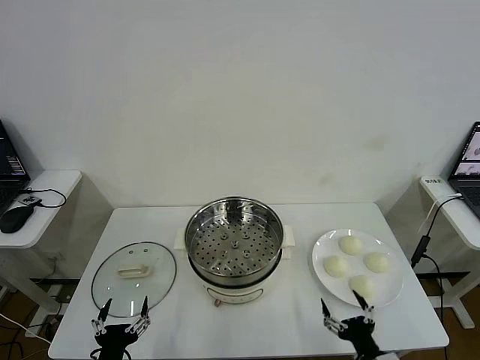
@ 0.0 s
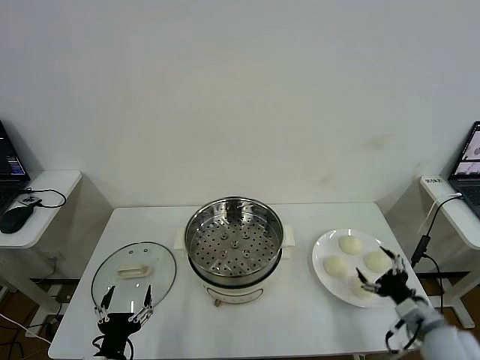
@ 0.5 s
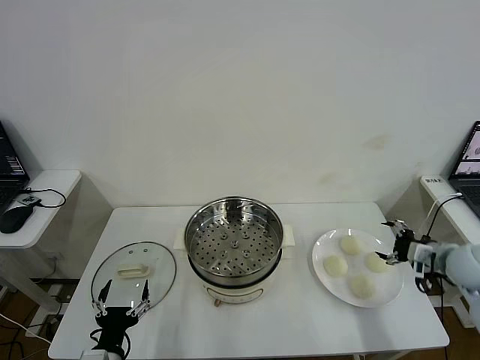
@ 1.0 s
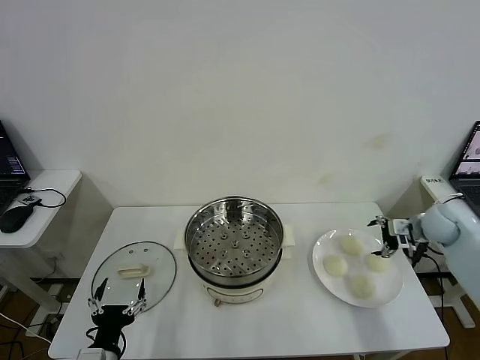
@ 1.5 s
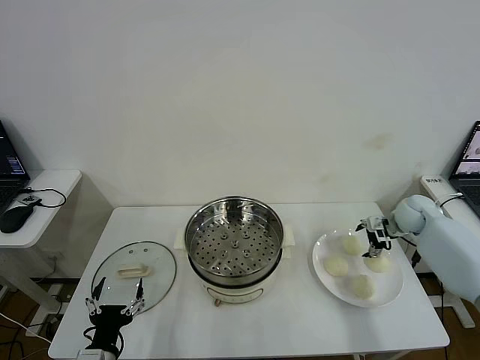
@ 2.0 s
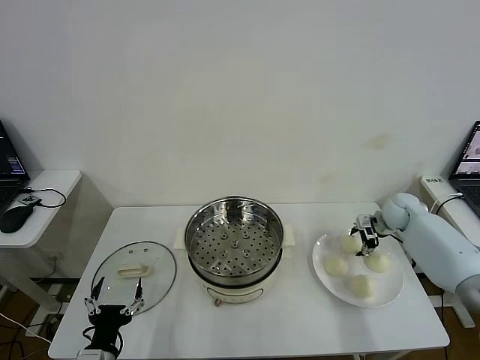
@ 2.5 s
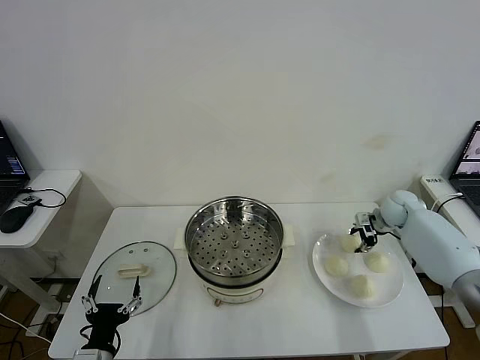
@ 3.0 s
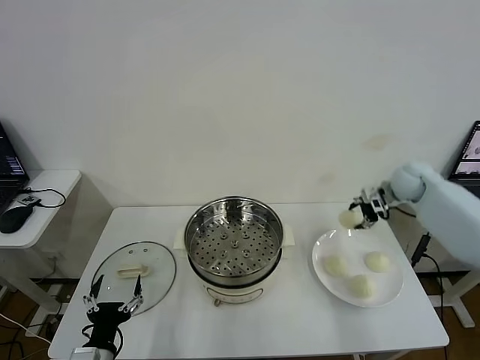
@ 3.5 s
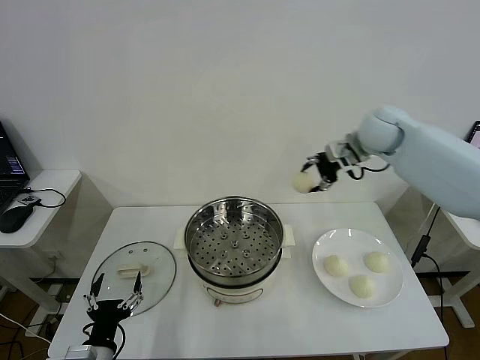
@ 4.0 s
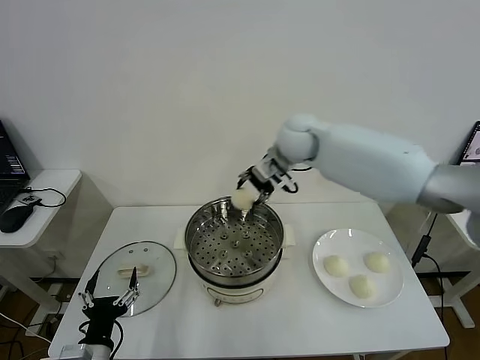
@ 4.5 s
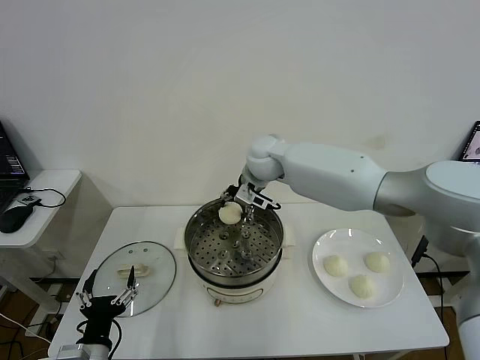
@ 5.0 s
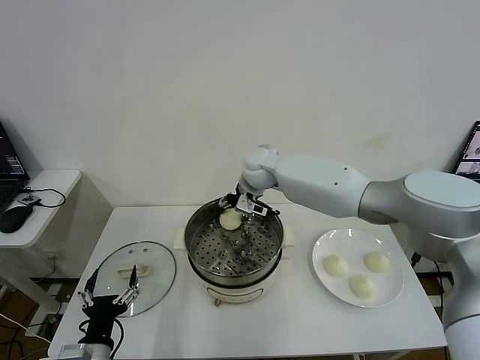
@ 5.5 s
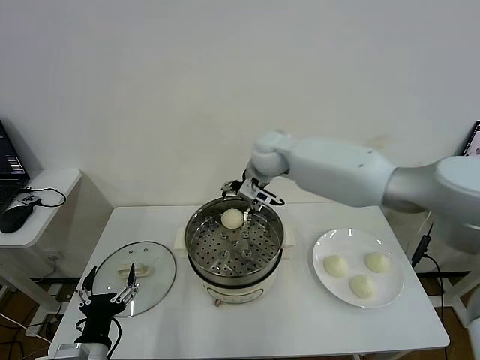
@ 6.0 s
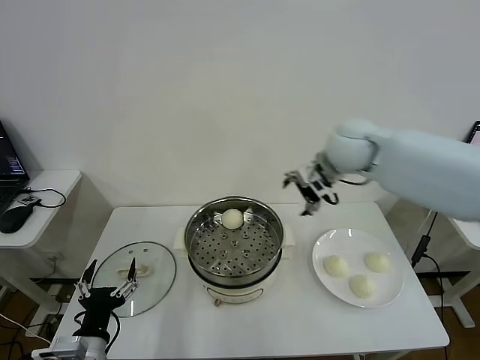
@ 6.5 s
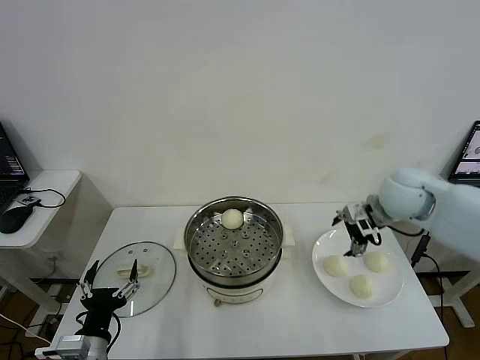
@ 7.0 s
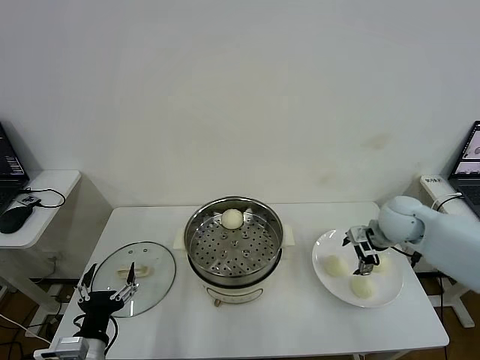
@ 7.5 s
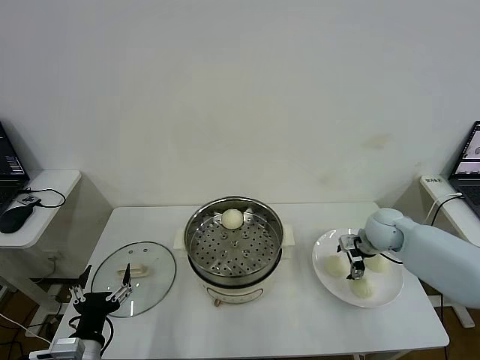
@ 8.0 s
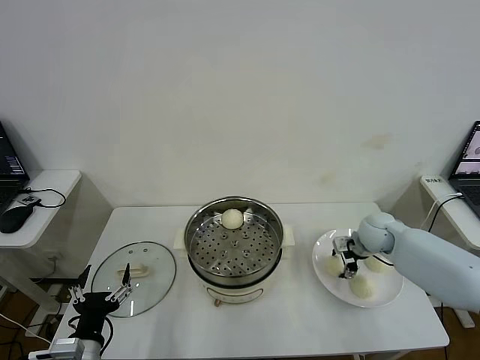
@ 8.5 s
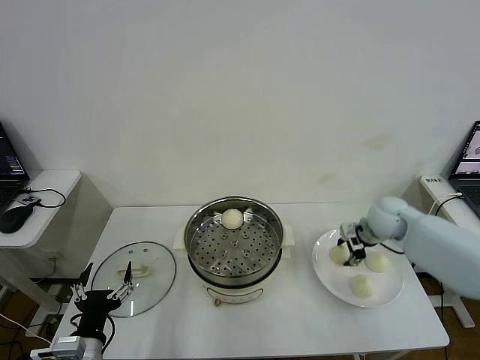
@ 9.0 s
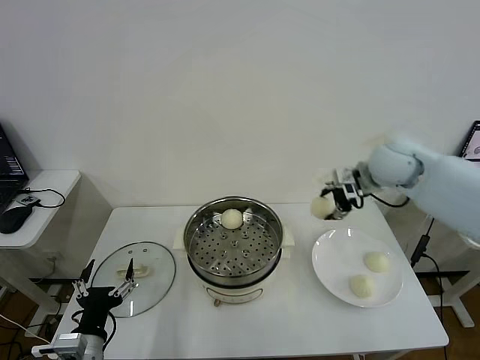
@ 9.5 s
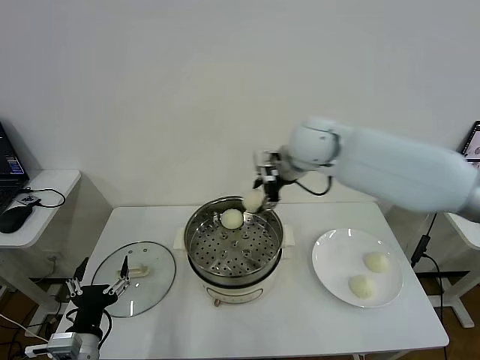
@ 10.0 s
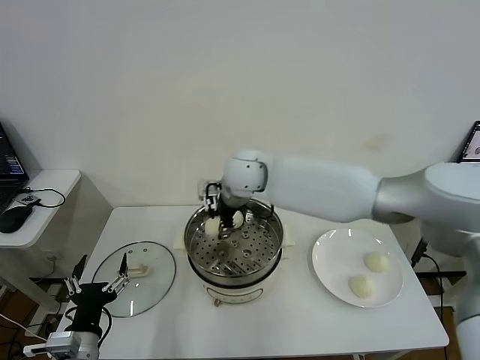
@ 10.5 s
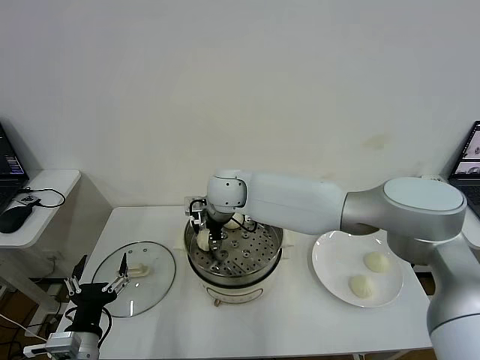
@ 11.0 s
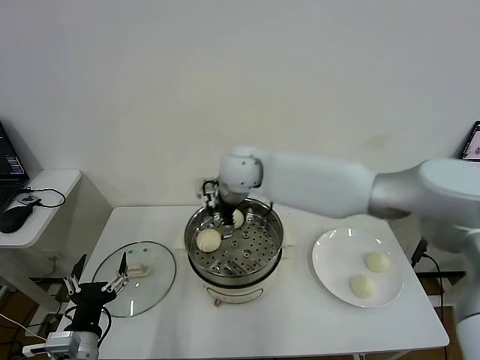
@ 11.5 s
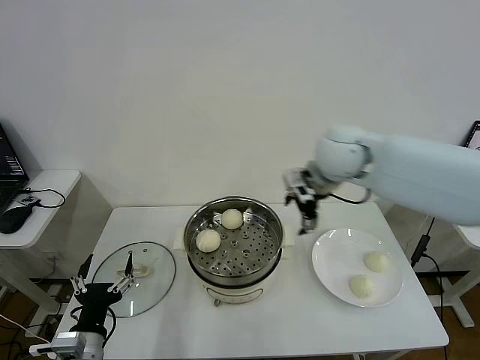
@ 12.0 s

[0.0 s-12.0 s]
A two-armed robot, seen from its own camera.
Step, 0.0 to 2.5 s: Grasp the baozi in the plate with right gripper.
Step, 3.0 to 5.5 s: Place the baozi on the steamer with right gripper.
Step, 6.0 to 8.5 s: Grasp the baozi in the plate with right gripper.
Step, 9.0 to 11.0 s: Place the baozi on the steamer with right gripper.
2.0 to 4.0 s: The right gripper travels upward and to the left by about 30 cm, and closes.
4.0 to 6.0 s: The right gripper moves to the left, some 15 cm, and opens up.
6.0 to 8.0 s: The right gripper is displaced to the right and downward by about 30 cm.
8.0 to 10.0 s: The right gripper is displaced to the left and upward by approximately 35 cm, and closes up.
10.0 to 12.0 s: The right gripper is displaced to the right by about 10 cm, and opens up.

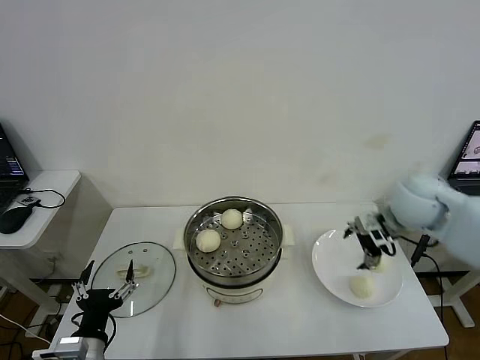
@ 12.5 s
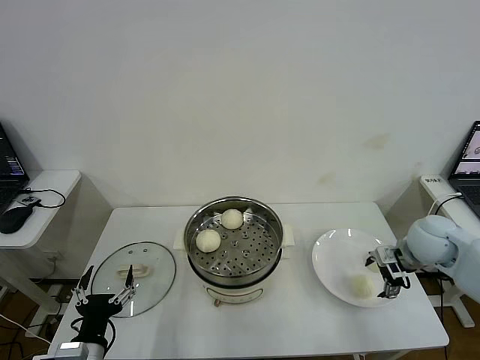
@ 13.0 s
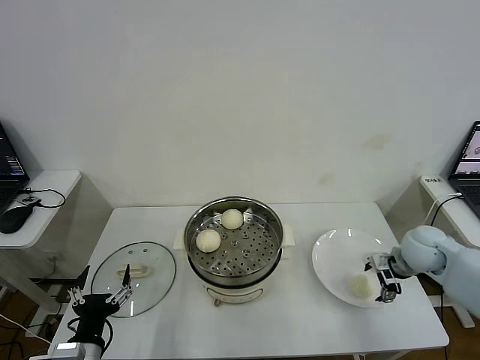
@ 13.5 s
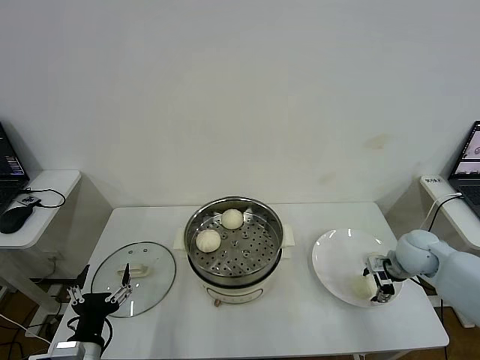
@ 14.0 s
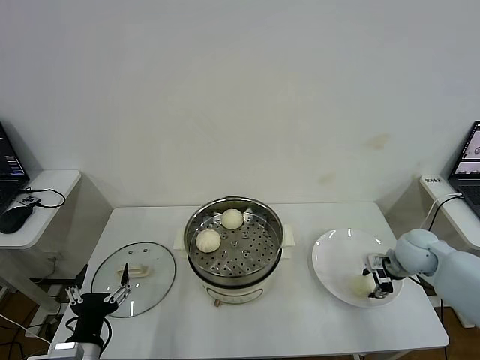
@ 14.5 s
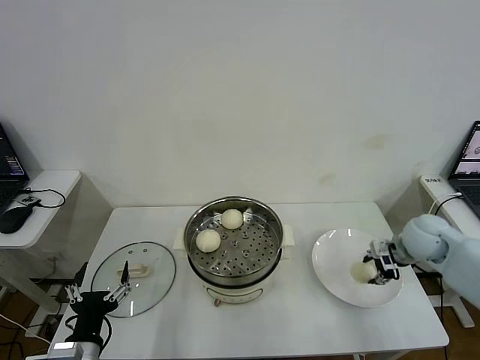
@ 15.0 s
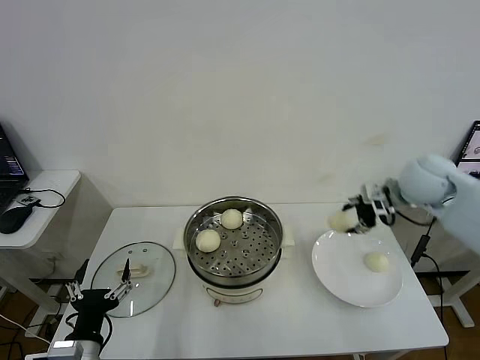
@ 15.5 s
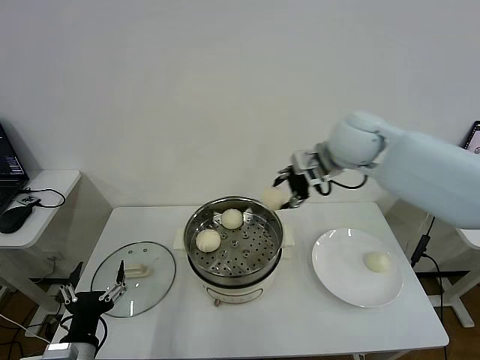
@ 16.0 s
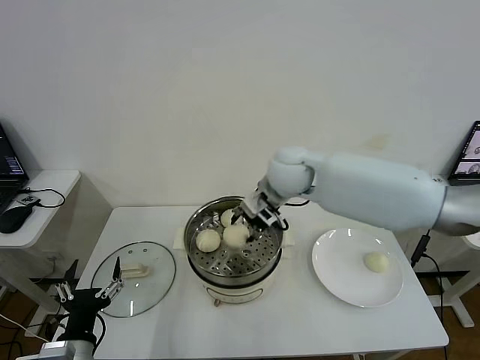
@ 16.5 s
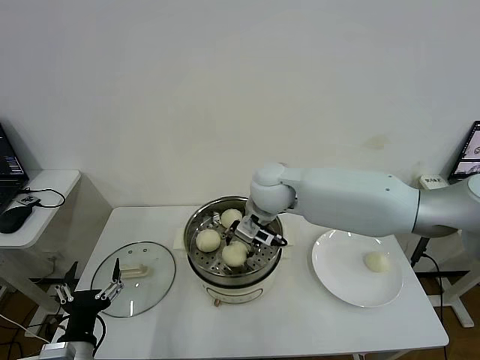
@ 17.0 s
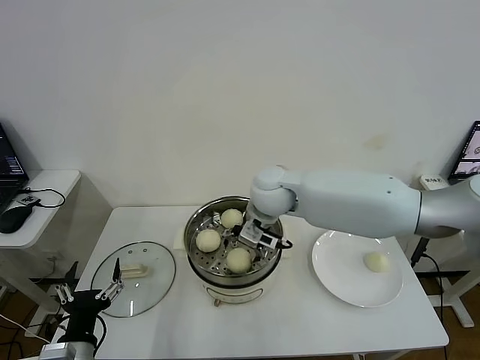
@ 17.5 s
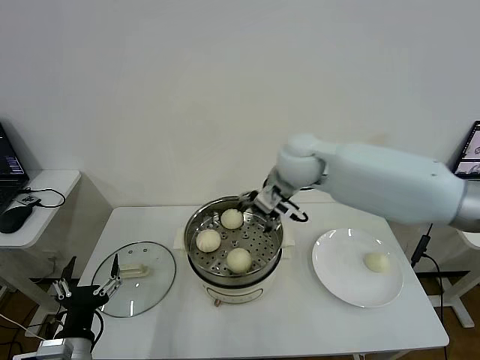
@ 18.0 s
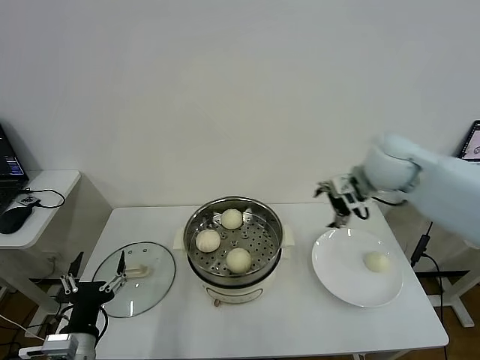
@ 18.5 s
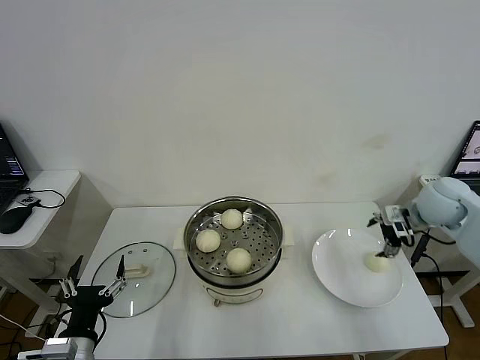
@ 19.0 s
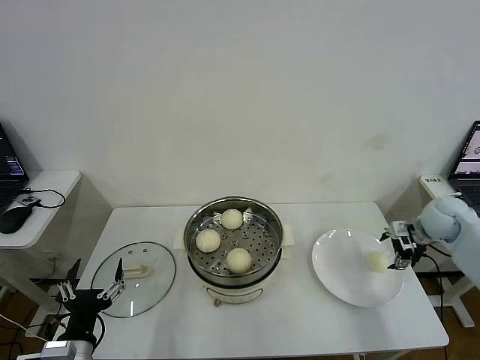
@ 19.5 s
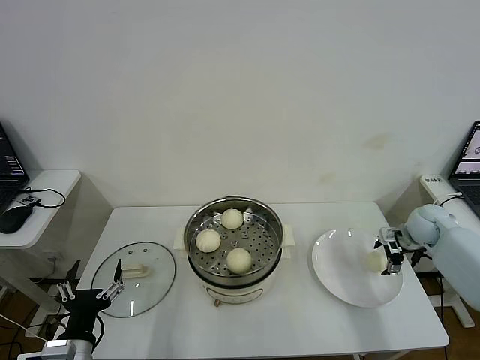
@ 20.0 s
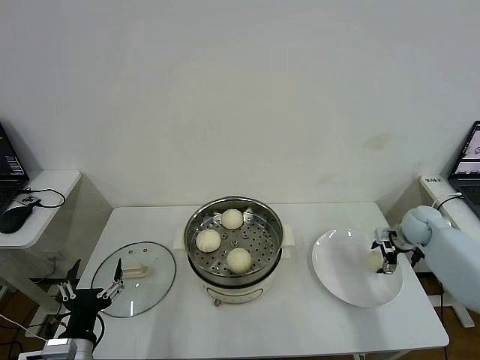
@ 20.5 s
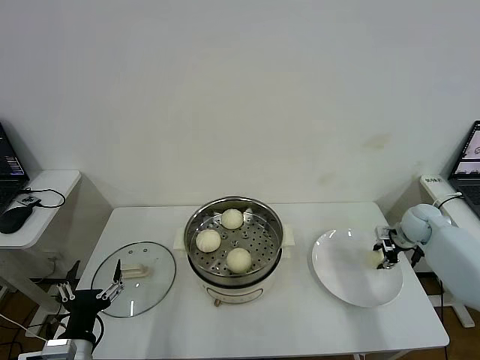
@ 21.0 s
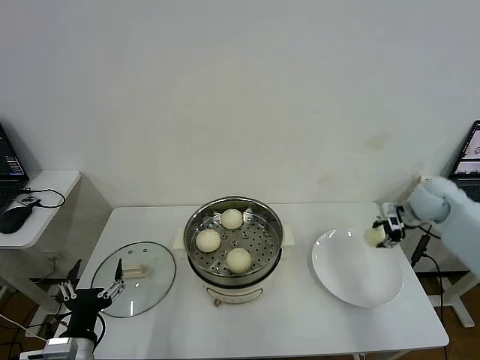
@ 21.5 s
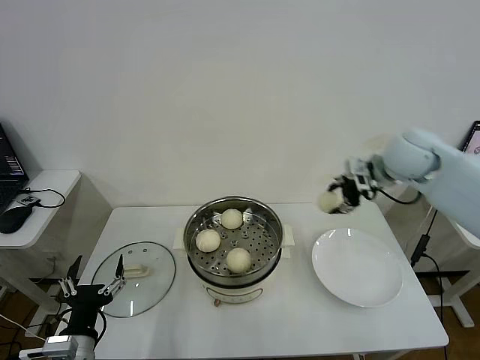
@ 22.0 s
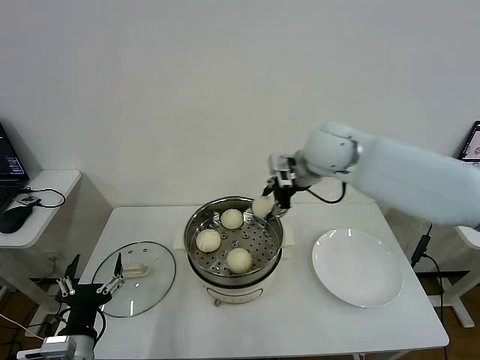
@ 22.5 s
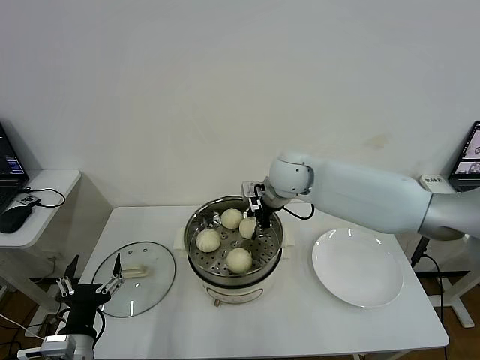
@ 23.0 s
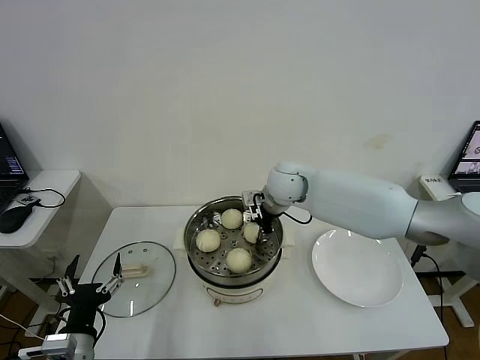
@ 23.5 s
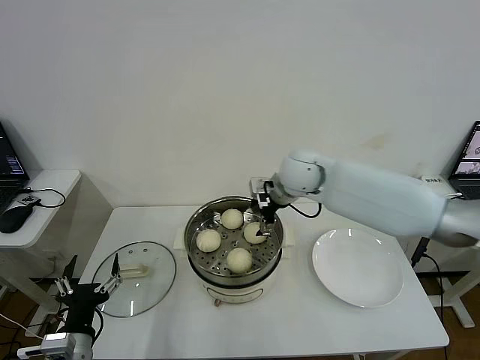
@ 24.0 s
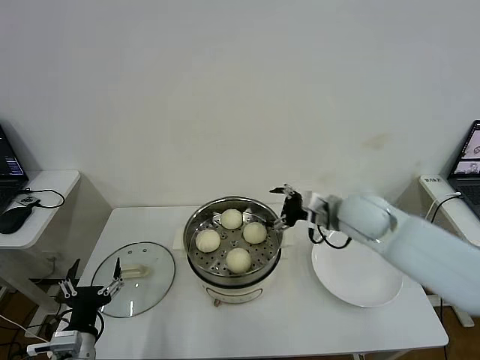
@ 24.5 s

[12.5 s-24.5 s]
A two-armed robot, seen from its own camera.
Step, 15.0 to 17.5 s: Place the baozi on the steamer with right gripper.
Step, 18.0 to 21.0 s: Grasp the baozi in the plate with right gripper.
Step, 21.5 to 23.5 s: Place the baozi on the steamer with right gripper.
12.5 to 14.5 s: The right gripper moves downward and to the right, roughly 15 cm, and closes its fingers.
14.5 to 16.5 s: The right gripper moves to the left and upward, approximately 35 cm.
16.5 to 18.5 s: The right gripper is displaced to the right by about 20 cm, and opens its fingers.
18.5 to 20.5 s: The right gripper is displaced downward and to the right by some 25 cm.
20.5 to 22.5 s: The right gripper shifts roughly 40 cm to the left and upward, and closes its fingers.
22.5 to 24.5 s: The right gripper shifts about 15 cm downward, to the right and backward, and opens up.

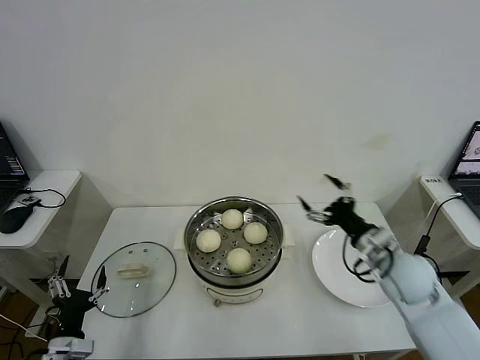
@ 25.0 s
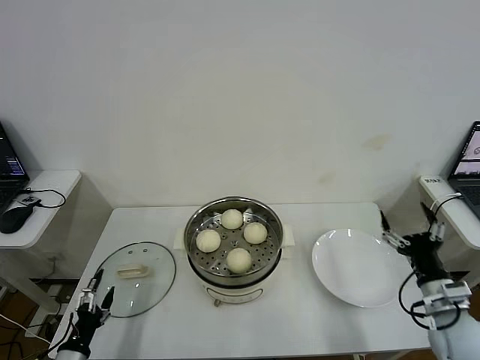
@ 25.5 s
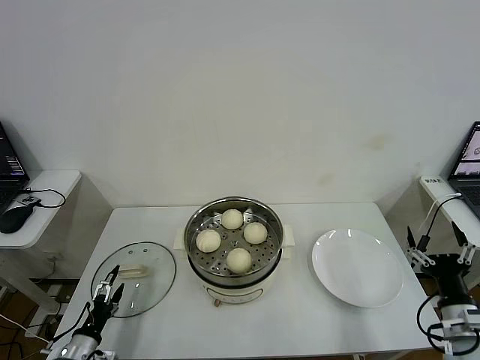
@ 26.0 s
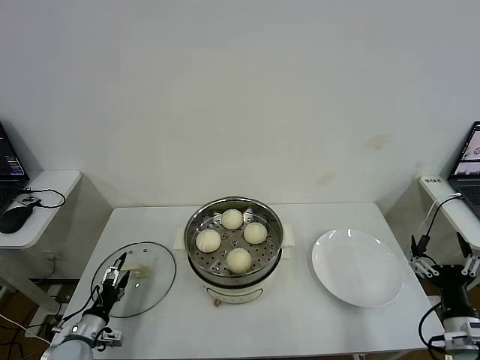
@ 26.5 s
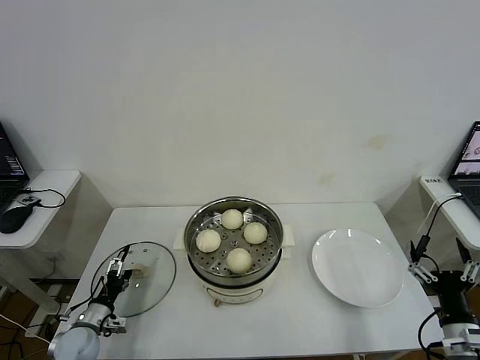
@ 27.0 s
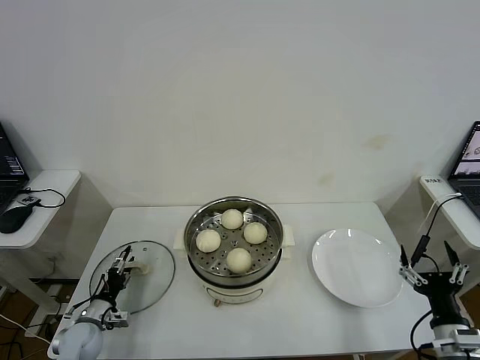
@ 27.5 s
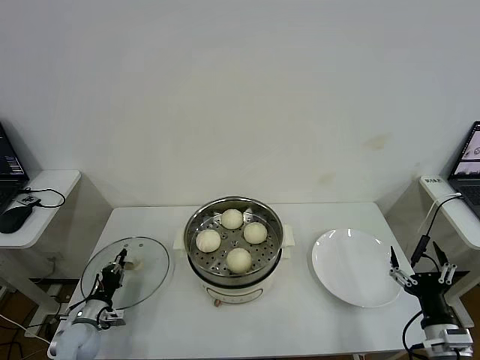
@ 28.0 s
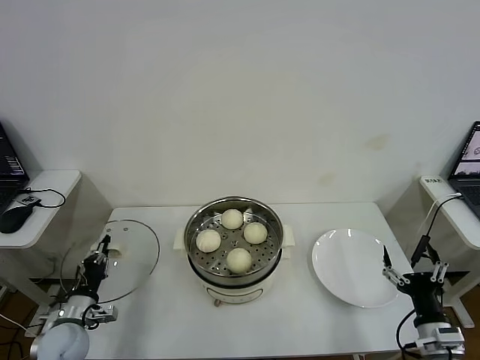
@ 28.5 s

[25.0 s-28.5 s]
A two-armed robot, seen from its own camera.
Step, 25.0 to 28.0 s: Grasp the pot lid with left gripper.
25.0 to 27.0 s: The right gripper is displaced backward and to the right by about 20 cm. The left gripper travels forward and downward by roughly 15 cm.
27.0 to 28.5 s: The left gripper is displaced upward by some 5 cm, and closes up.
